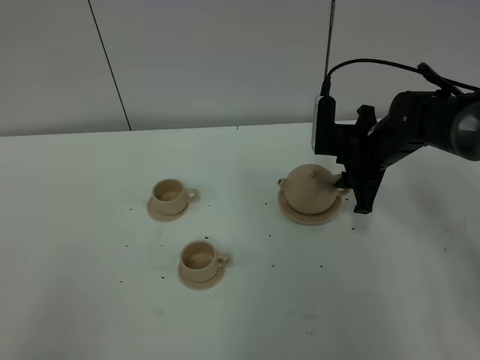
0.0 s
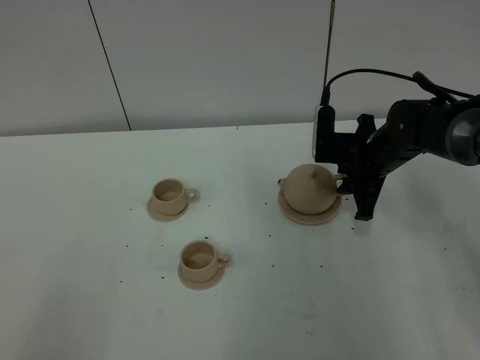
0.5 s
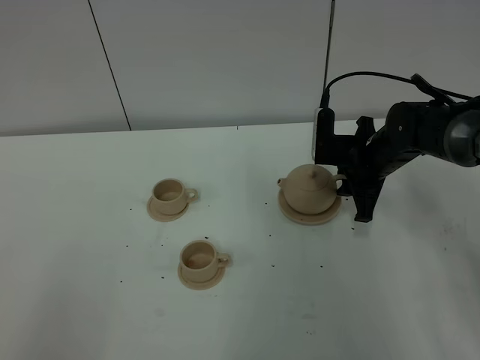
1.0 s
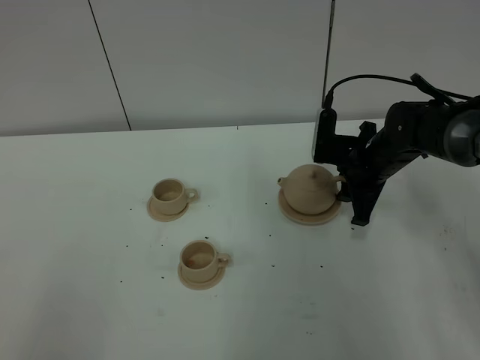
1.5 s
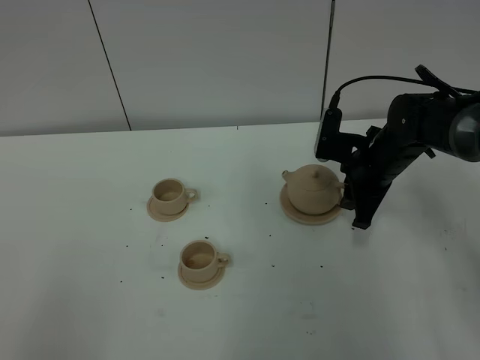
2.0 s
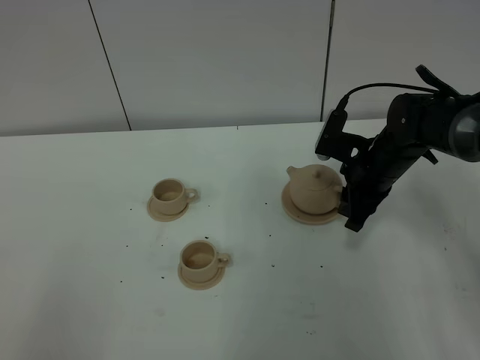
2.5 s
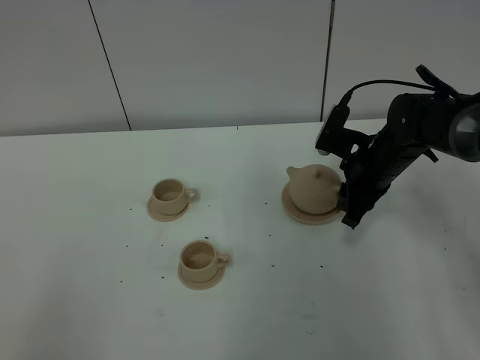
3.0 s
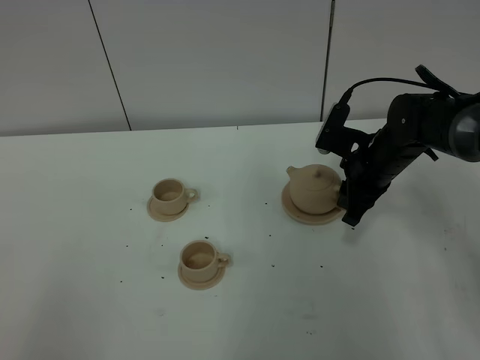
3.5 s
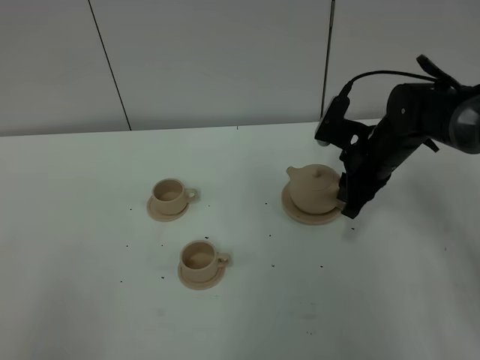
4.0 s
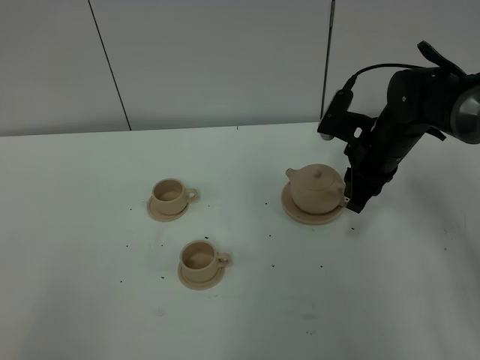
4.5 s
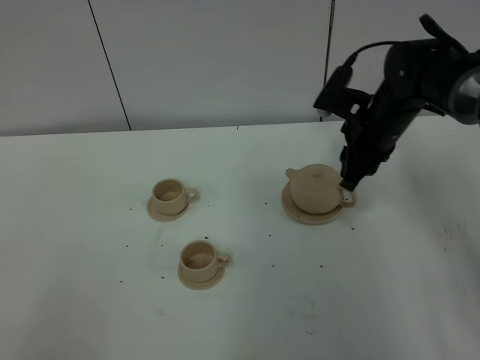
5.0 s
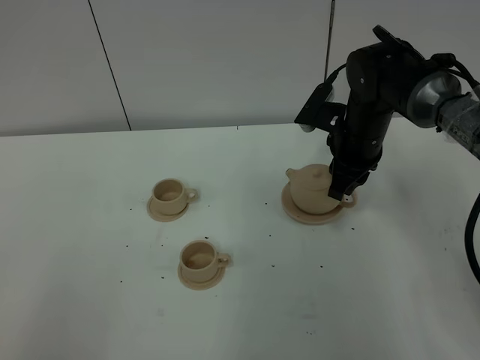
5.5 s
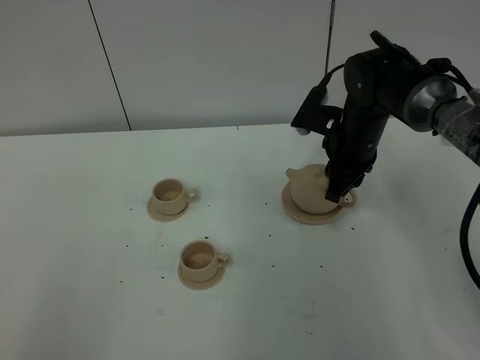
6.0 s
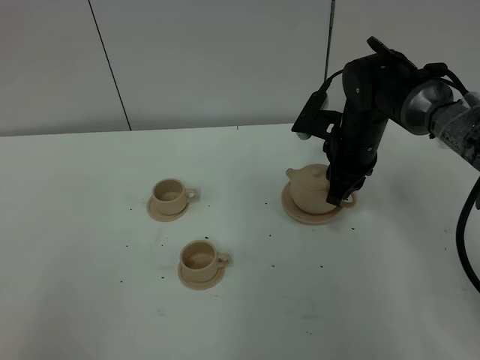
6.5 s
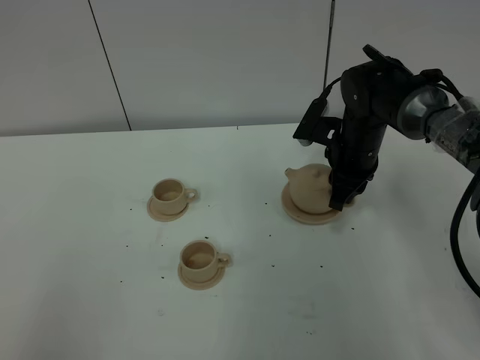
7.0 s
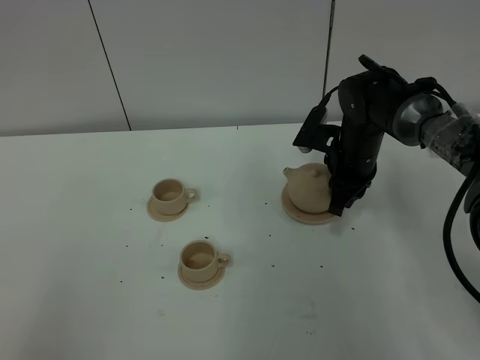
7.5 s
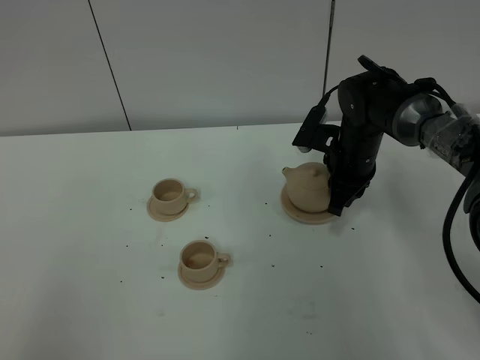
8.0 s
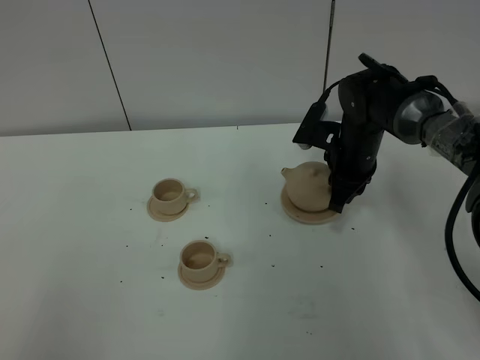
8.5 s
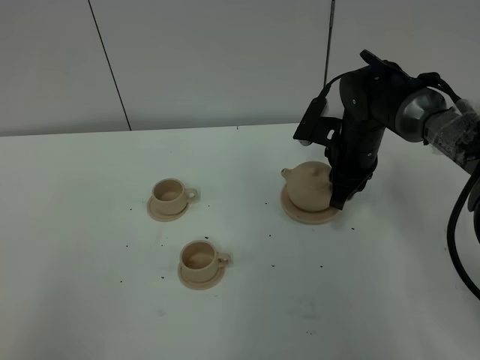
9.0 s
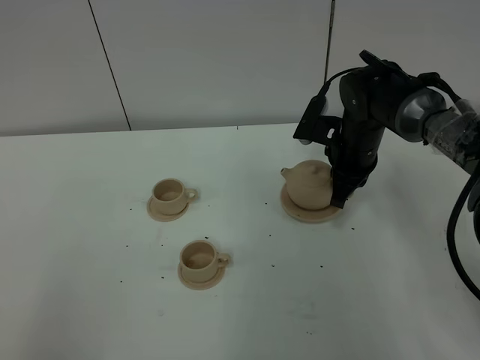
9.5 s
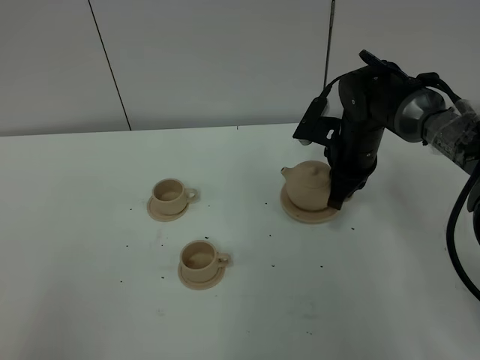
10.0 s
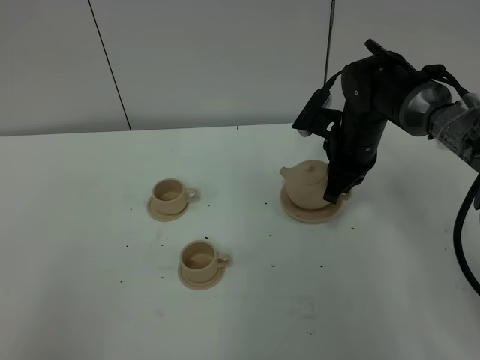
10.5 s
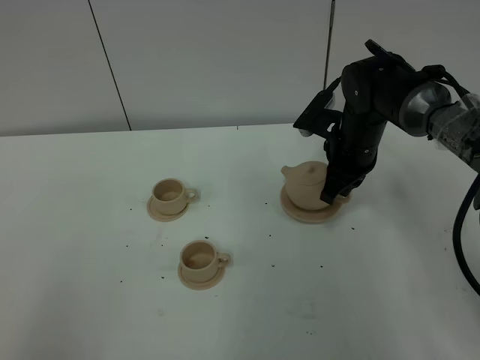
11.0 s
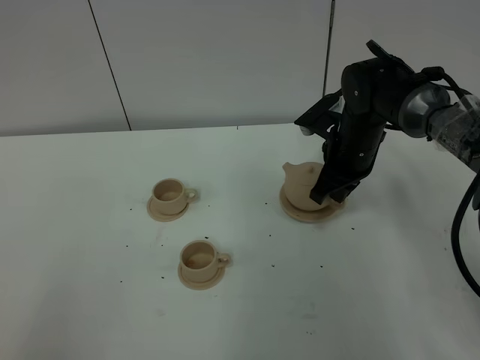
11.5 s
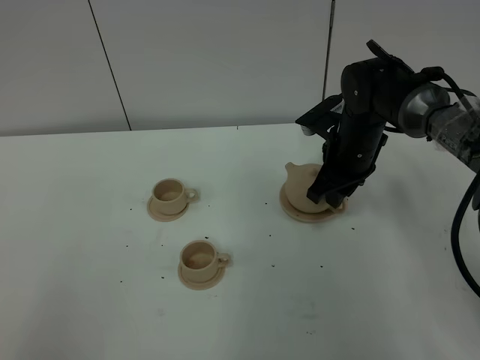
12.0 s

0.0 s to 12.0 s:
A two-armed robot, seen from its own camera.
Task of the whole recording: grasp the brown teapot and pour the tea into the two brown teacups one by one, put the brown teapot back in its original place.
0.0 to 2.0 s: There are only small adjustments of the grippers.
2.0 to 4.0 s: The grippers stay close to where they were, moving slightly.
4.0 to 8.0 s: The grippers stay close to where they were, moving slightly.
8.0 to 10.0 s: Both grippers stay about where they are.
10.0 to 12.0 s: The right gripper opens.

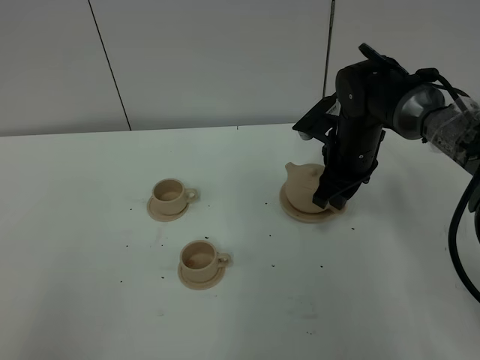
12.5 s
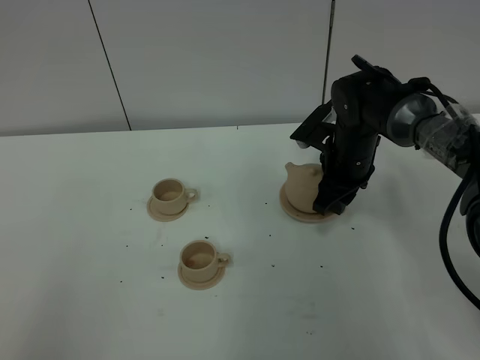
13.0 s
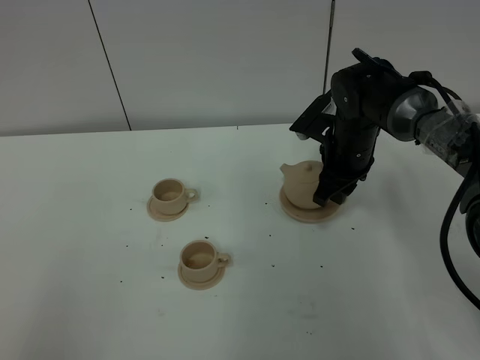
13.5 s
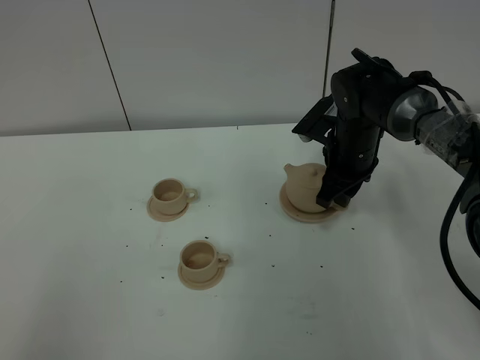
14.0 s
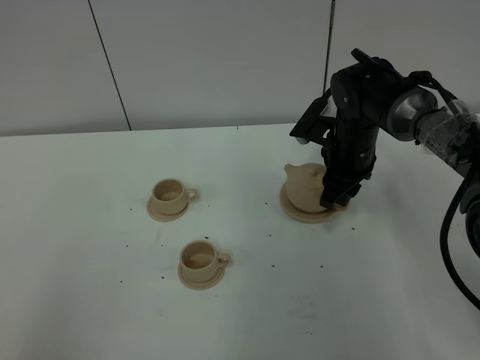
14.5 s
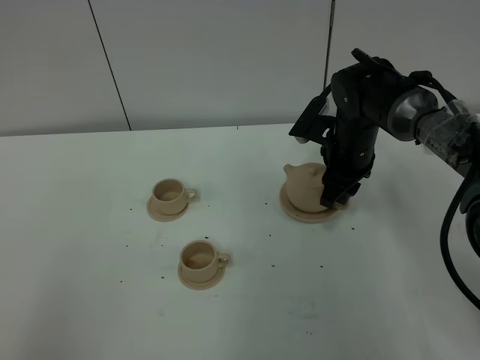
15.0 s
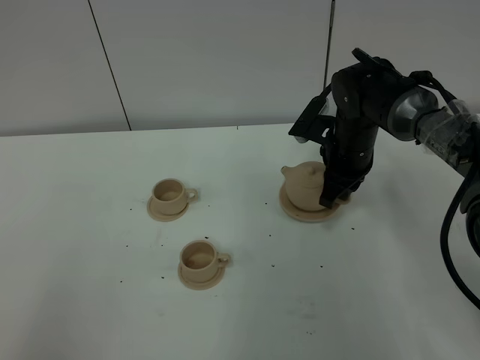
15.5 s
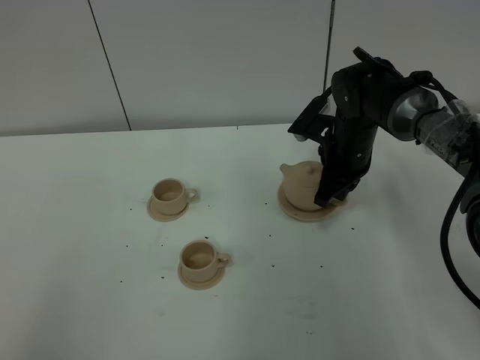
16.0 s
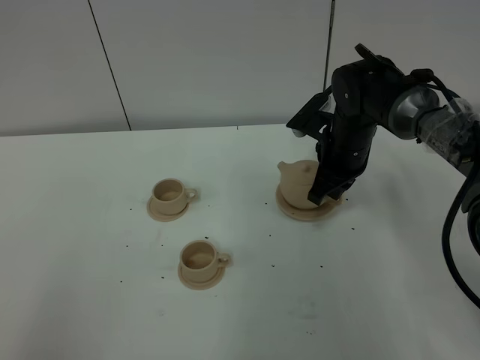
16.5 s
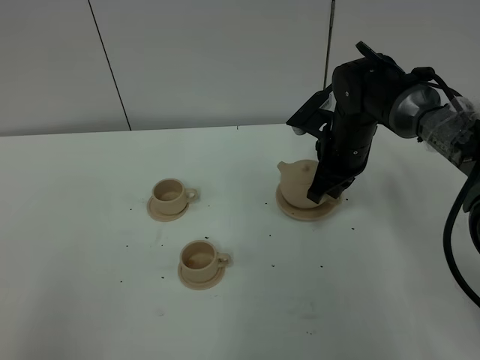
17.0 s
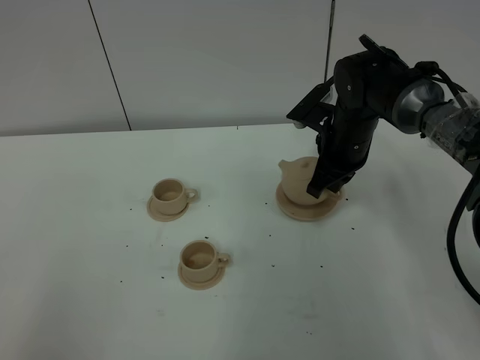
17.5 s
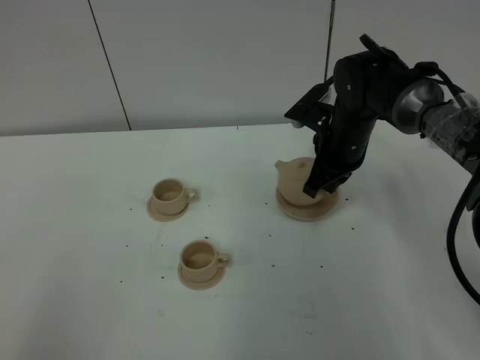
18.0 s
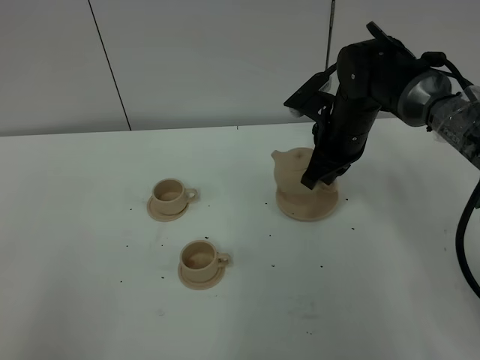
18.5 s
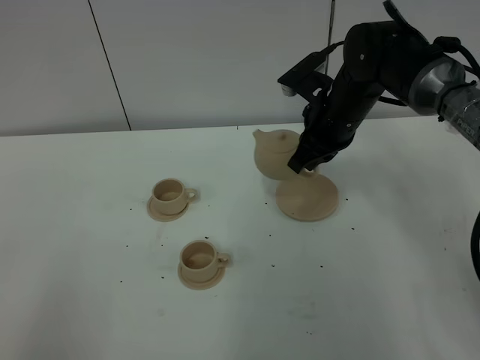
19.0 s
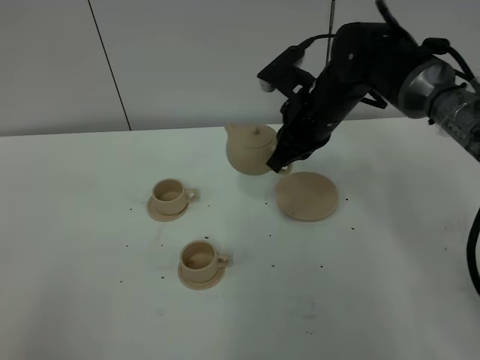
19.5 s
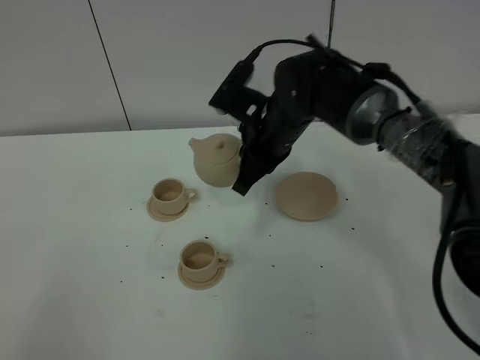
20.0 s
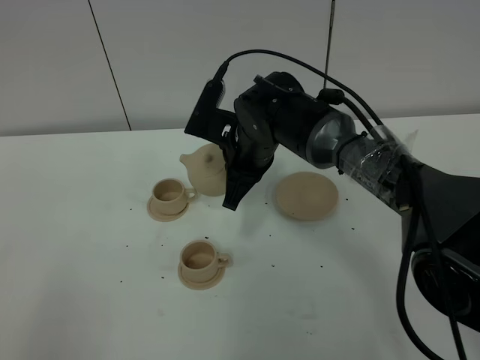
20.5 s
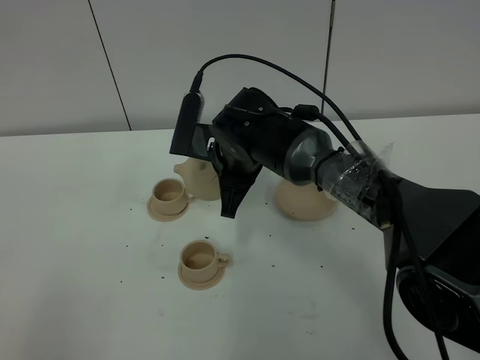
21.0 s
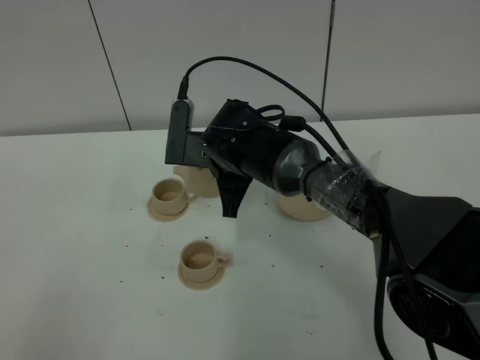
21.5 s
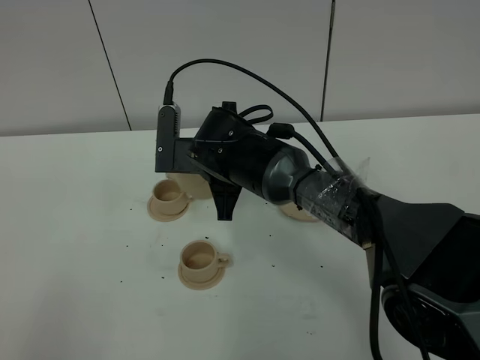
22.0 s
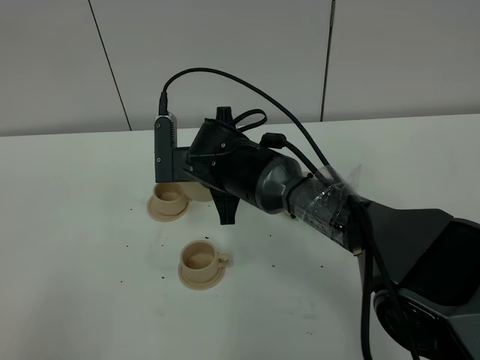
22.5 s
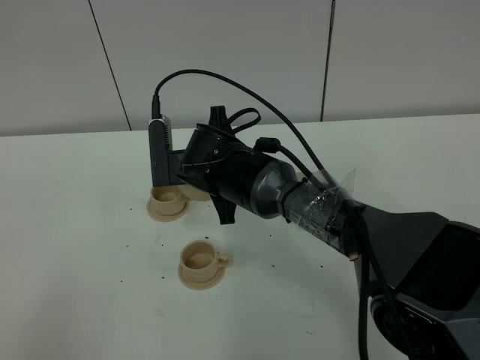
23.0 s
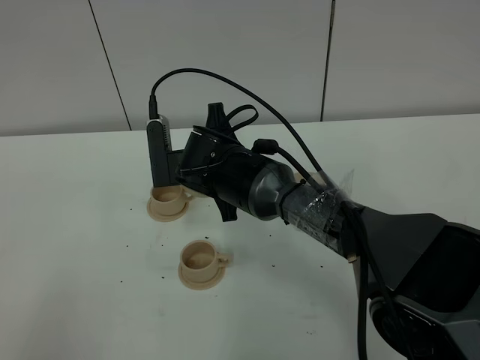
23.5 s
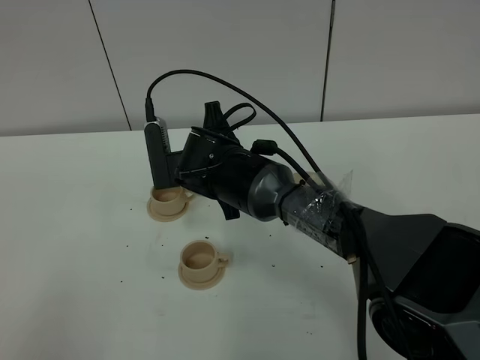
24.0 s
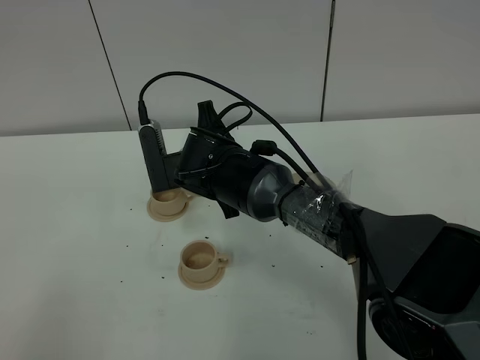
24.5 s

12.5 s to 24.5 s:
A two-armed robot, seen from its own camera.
Task of the whole recording: grasp the brown teapot and pour the tea into the two brown teacups one by one, put the brown teapot back in its original place.
Step, 12.5 to 18.0 s: Pick up the teapot with the right gripper.
12.5 to 14.5 s: The grippers stay close to where they were, moving slightly.
14.5 to 16.5 s: The right gripper closes its fingers.
16.5 to 18.5 s: The grippers move only a little.
18.5 to 20.5 s: The right gripper heads to the left, covering roughly 10 cm.
20.5 to 22.5 s: The right gripper ends up some 5 cm from where it was.
22.5 to 24.5 s: The grippers stay close to where they were, moving slightly.

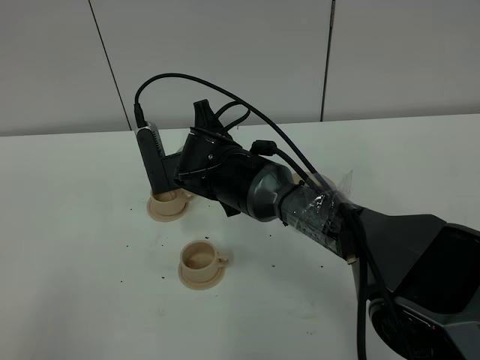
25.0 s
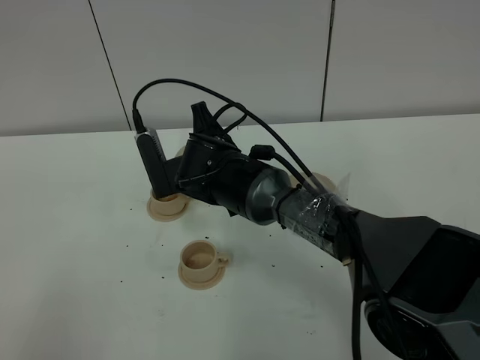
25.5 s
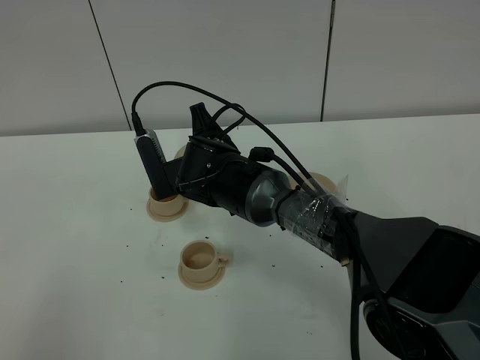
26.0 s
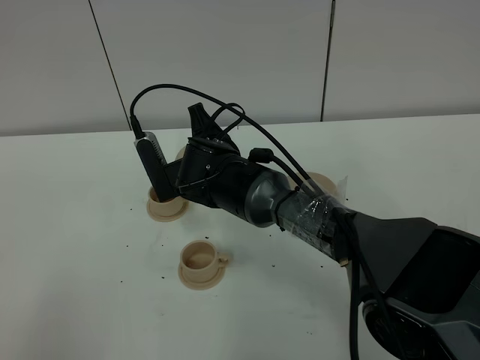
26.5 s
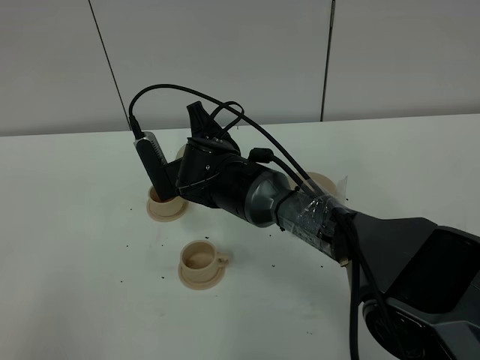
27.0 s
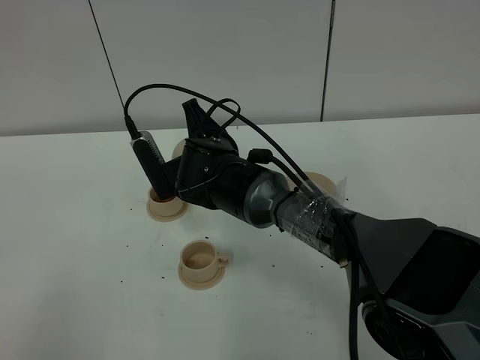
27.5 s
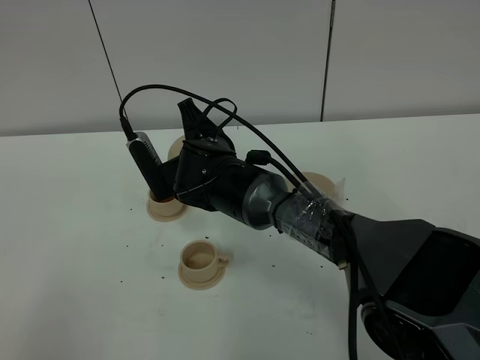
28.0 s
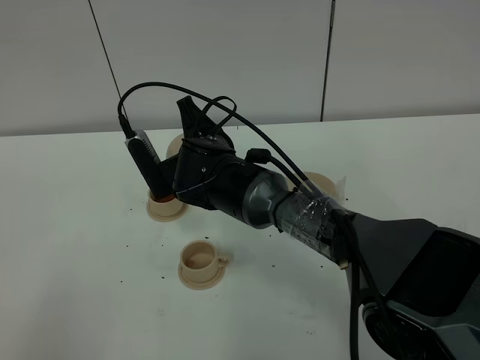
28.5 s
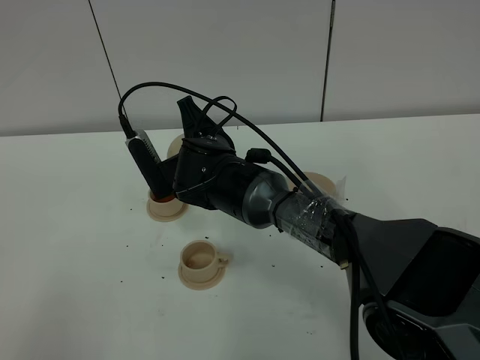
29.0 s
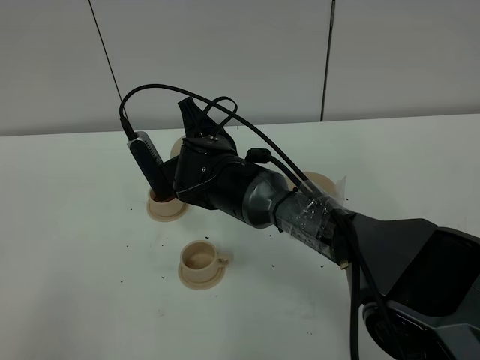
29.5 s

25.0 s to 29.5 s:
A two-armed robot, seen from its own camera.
Task of the whole recording: grasp the brown teapot and pour the tea into the two brown teacups one by one, put the brown teapot back in its original place.
25.0 to 29.5 s: There are only small adjustments of the grippers.
